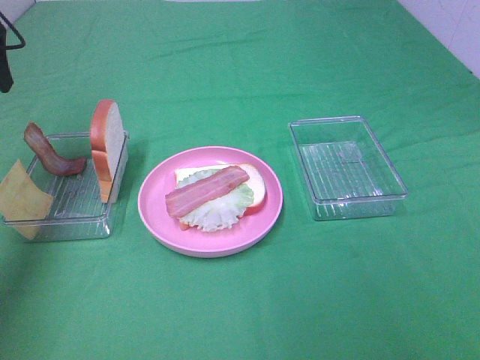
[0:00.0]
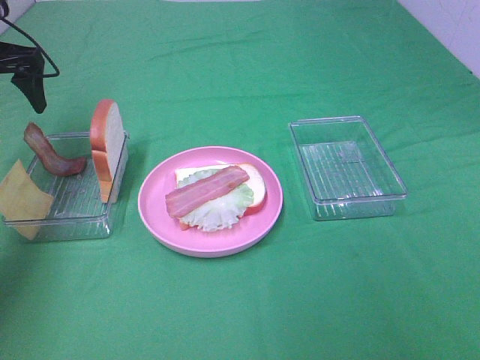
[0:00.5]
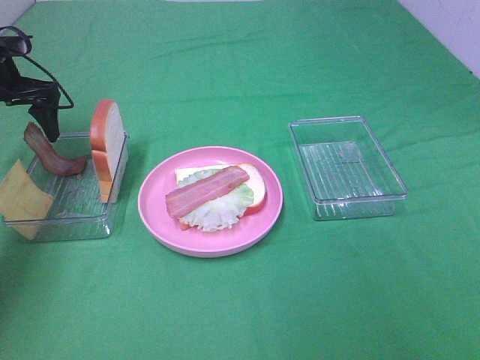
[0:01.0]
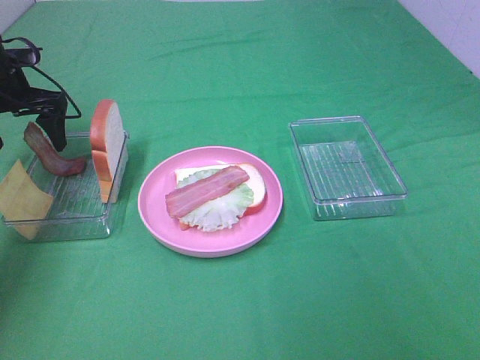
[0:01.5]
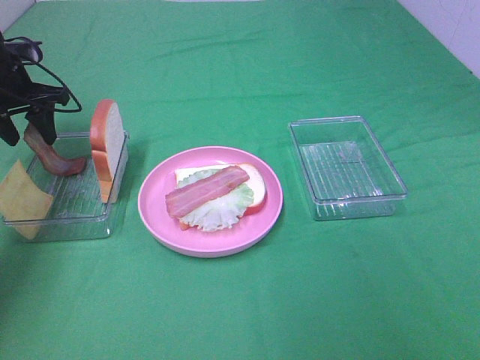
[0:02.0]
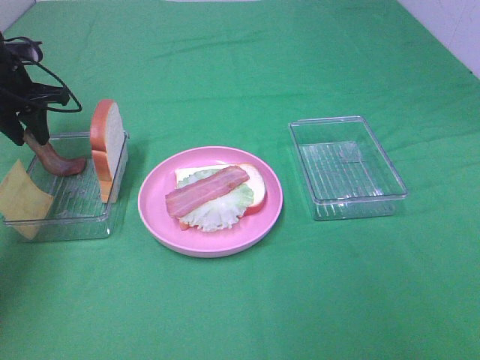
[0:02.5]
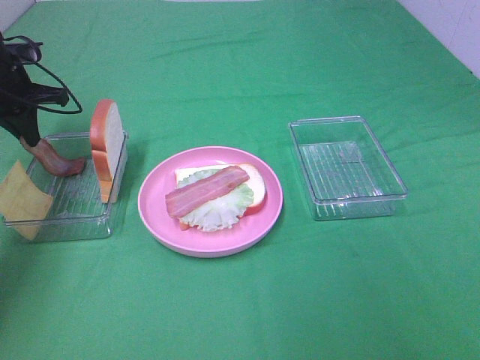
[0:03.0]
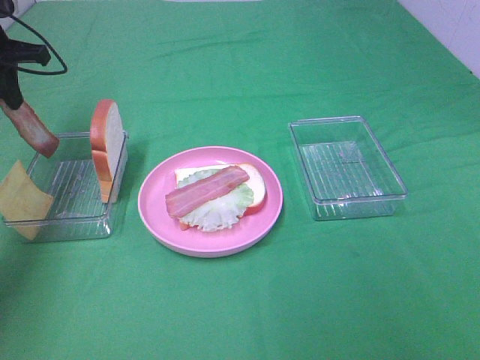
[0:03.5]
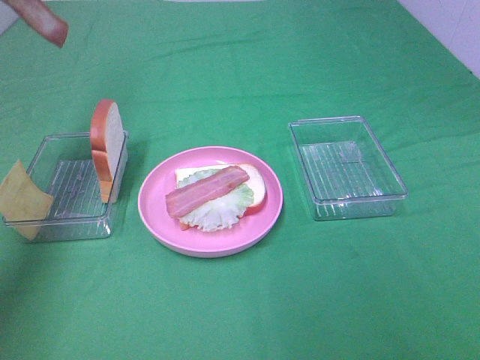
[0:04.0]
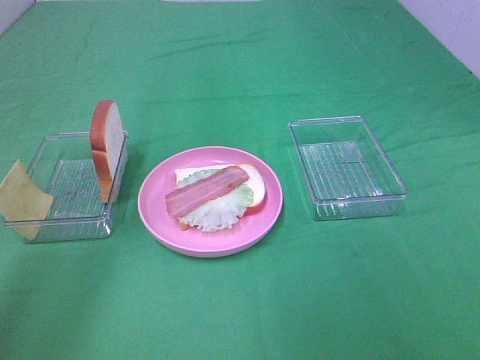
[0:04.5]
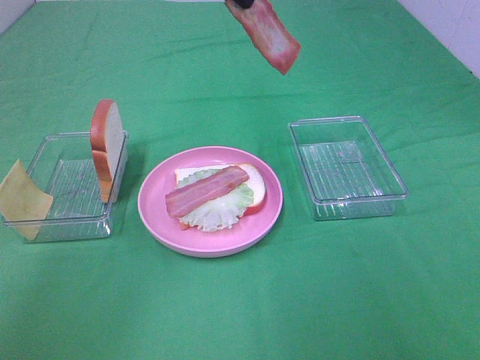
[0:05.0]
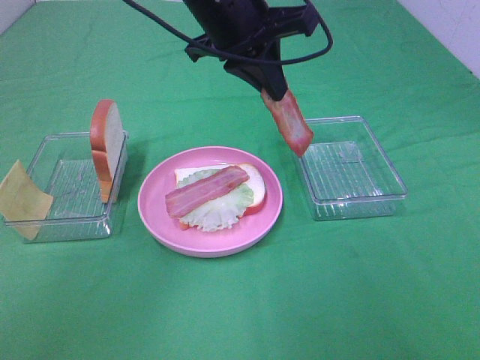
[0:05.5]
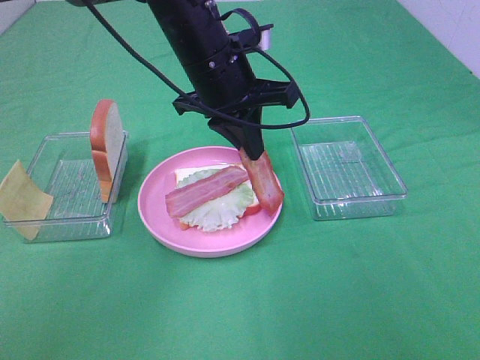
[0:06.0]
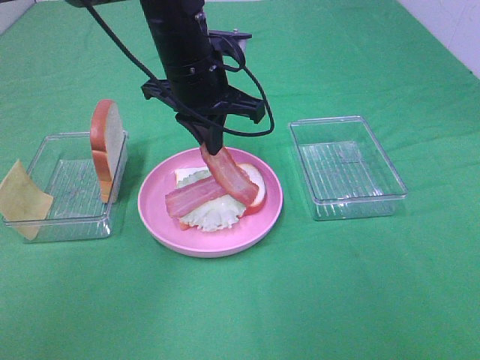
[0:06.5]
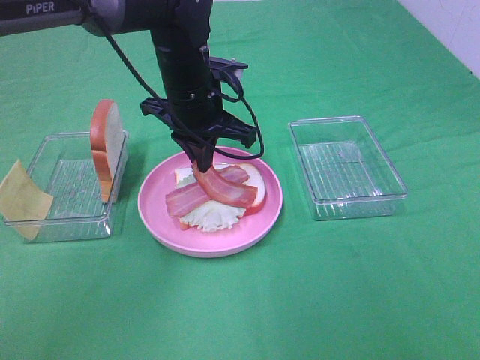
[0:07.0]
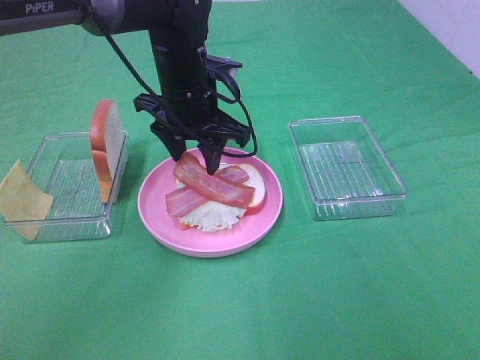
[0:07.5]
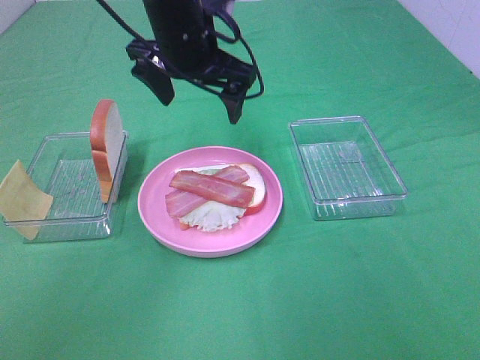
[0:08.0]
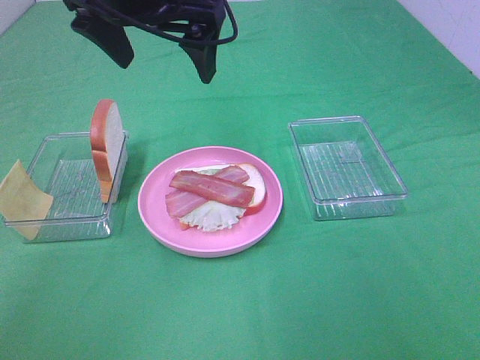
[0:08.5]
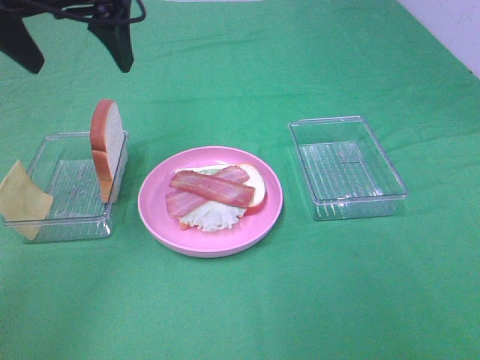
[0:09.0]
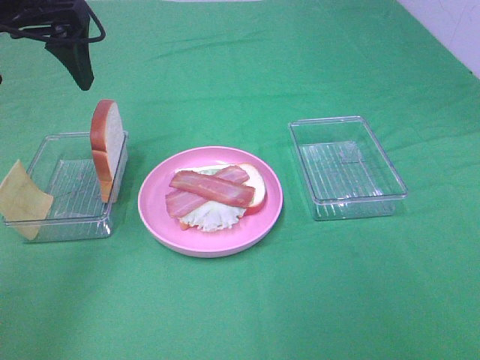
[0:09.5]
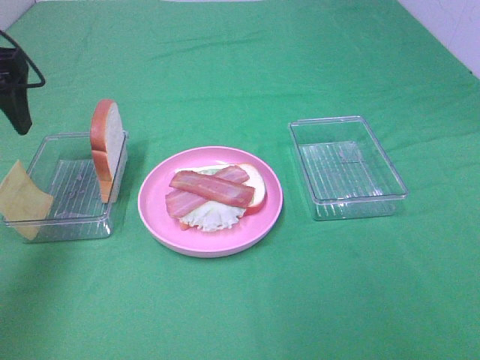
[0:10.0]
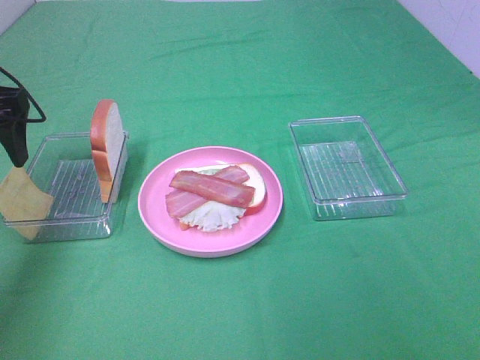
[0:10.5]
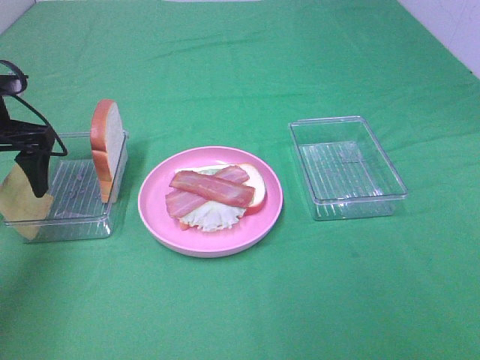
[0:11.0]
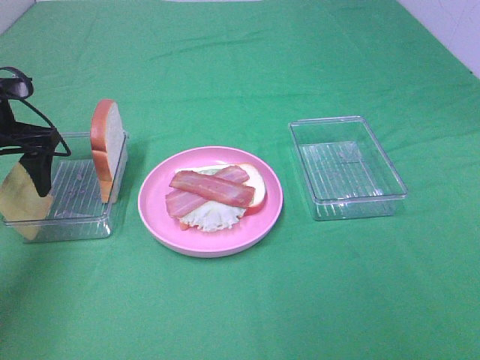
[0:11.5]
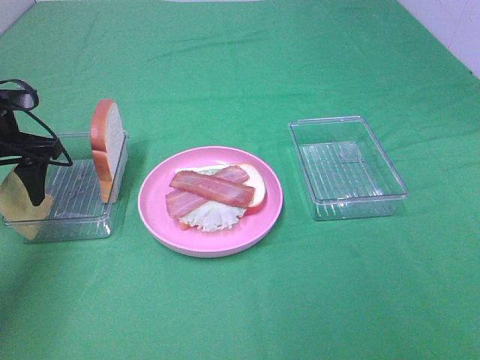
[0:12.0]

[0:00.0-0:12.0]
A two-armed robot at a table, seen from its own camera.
Task of the whole recording: Make sandwiches.
Step, 0:00.0 to 0:03.0: Left hand:grab the bacon.
Step, 0:03.5 to 0:07.5: Left hand:place bacon on bacon.
0:00.0 to 0:02.0: The left gripper shifts about 15 cm downward and forward, and closes its fingers.
0:02.0 to 0:04.0: The left gripper moves upward, some 20 cm, and closes.
0:04.0 to 0:06.0: The left gripper is displaced to the right and downward by about 30 cm.
0:06.0 to 0:08.0: The left gripper ends up about 5 cm from where it was, and opens.
0:08.0 to 0:10.0: The left gripper moves to the left, some 25 cm.
0:10.0 to 0:12.0: The left gripper is displaced downward by approximately 10 cm.

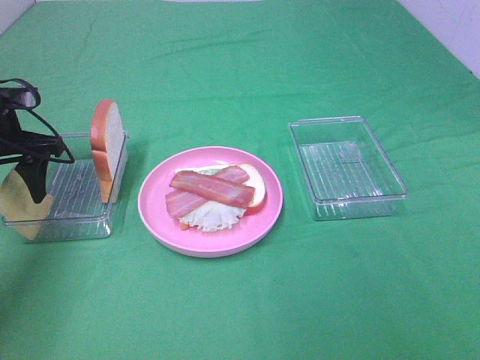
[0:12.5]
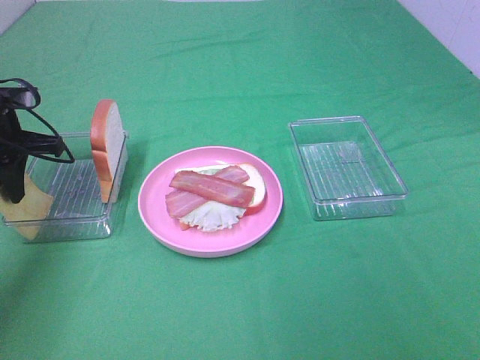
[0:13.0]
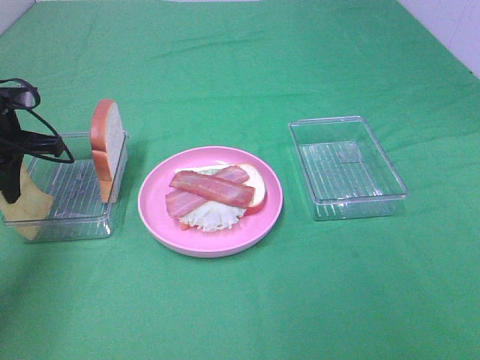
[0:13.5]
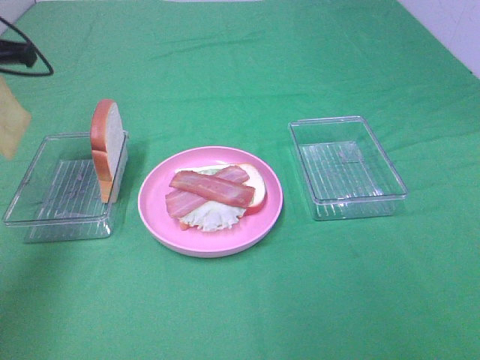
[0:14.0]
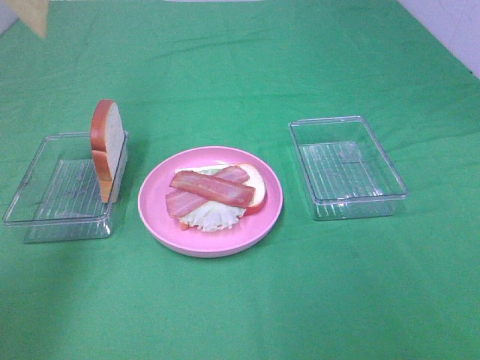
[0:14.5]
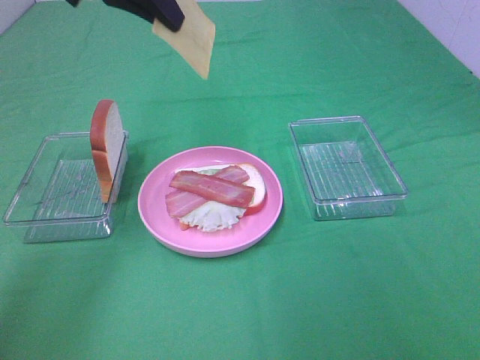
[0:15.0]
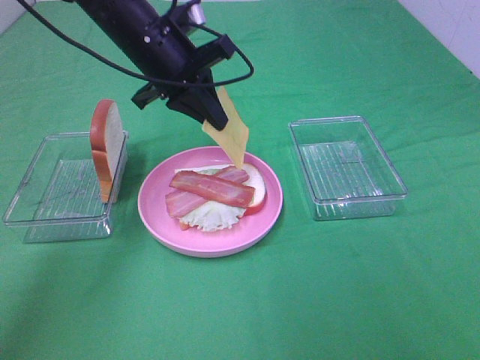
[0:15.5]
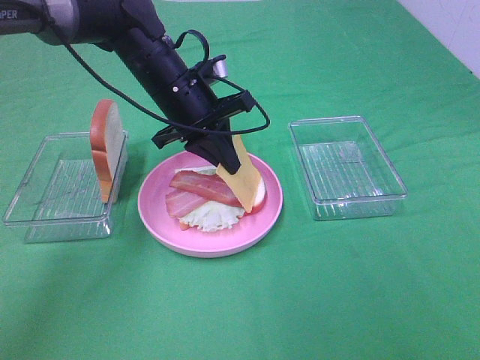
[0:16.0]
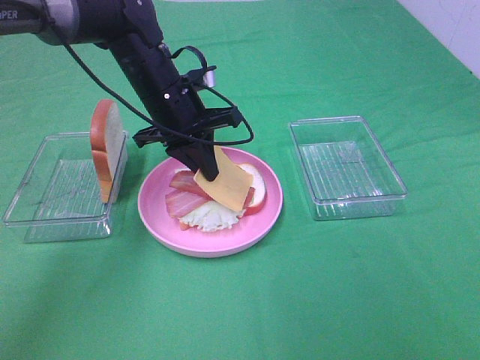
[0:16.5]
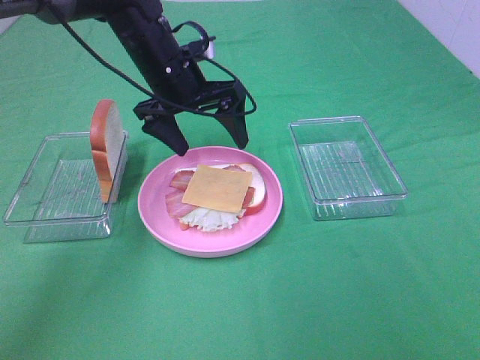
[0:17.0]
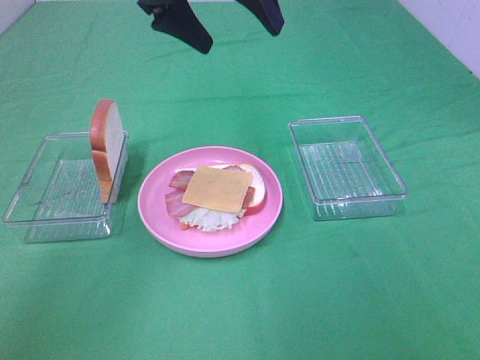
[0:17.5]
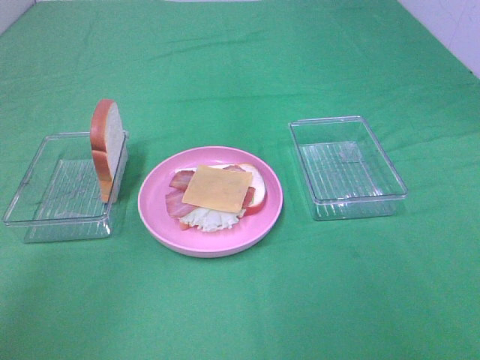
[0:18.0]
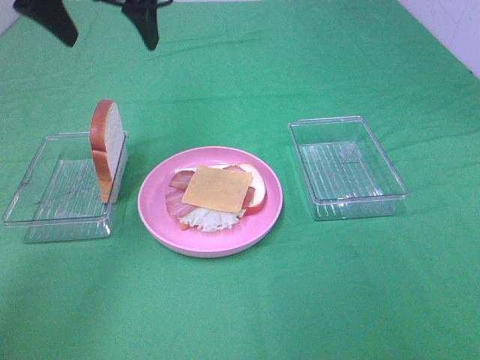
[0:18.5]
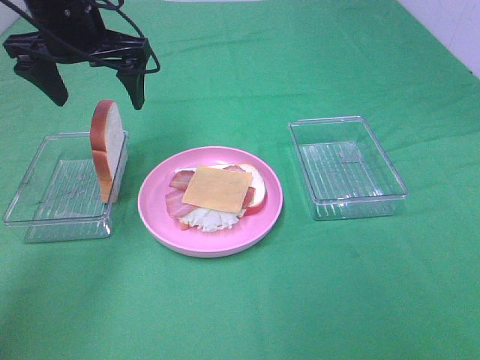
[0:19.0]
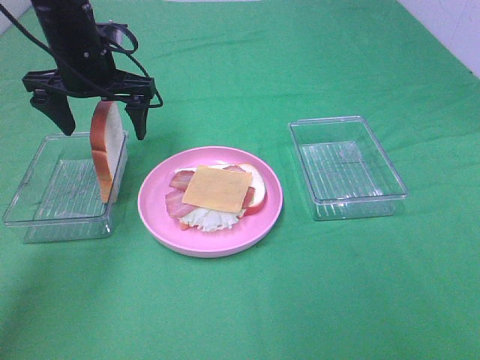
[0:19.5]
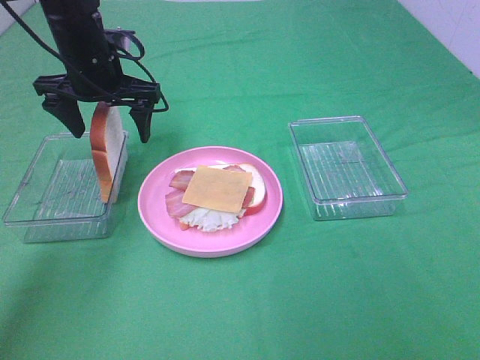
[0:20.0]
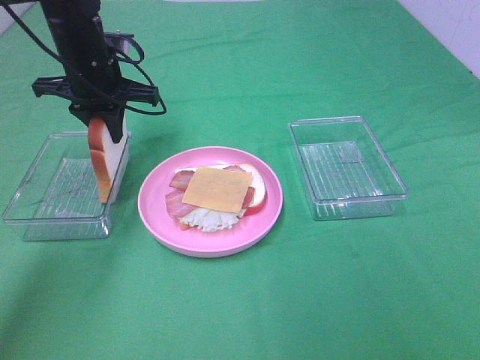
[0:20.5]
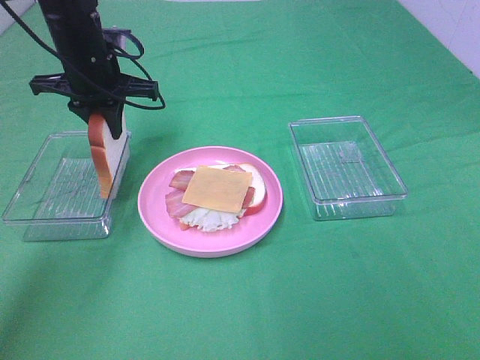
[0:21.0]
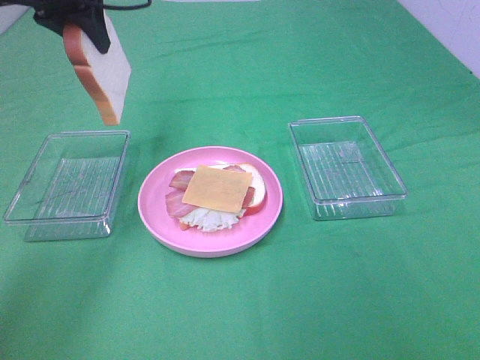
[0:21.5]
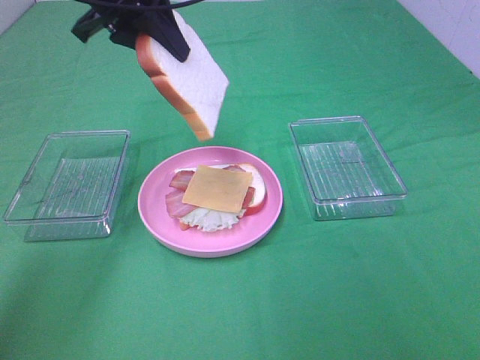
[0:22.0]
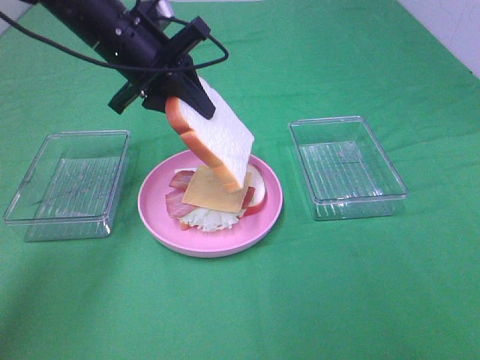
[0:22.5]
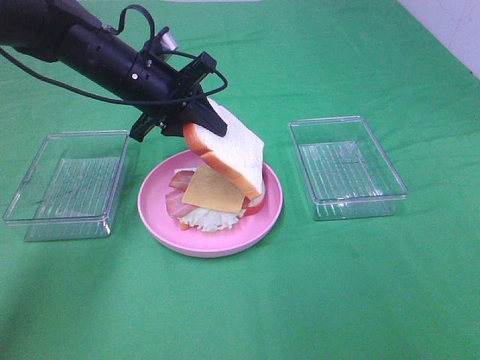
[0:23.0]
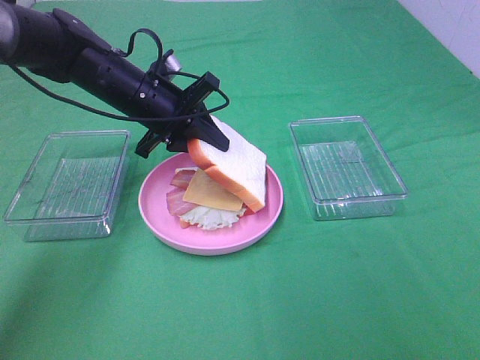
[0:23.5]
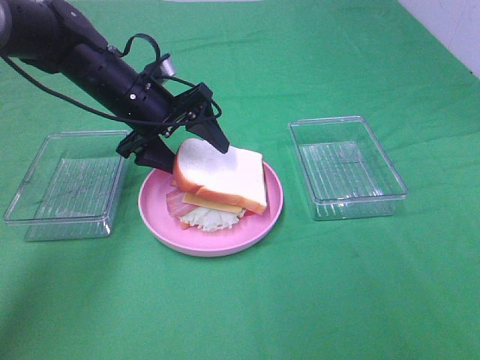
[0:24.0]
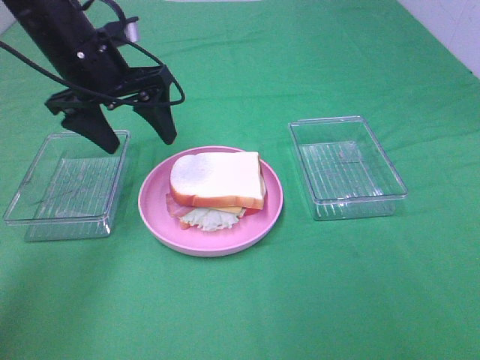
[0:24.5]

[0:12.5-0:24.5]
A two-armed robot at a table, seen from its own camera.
Task of the whole recording: Make sandwiches.
Step, 0:14.0 to 0:16.5: Left hand:place the cheese slice on top of the bacon.
Step, 0:17.0 to 0:21.0: Left hand:grab the bread slice.
Step, 0:21.5 to 0:24.0: Left hand:place the bread slice on the cheese slice.
0:12.5 to 0:14.5: The left gripper moves upward, about 25 cm, and closes.
0:14.5 to 0:16.5: The left gripper is displaced downward and to the right by roughly 30 cm.
0:16.5 to 0:18.5: The left gripper shifts about 20 cm upward and to the left, and opens up.
0:18.5 to 0:20.5: The left gripper is displaced downward and forward by about 15 cm, and closes up.
0:20.5 to 0:22.5: The left gripper heads to the right, covering about 5 cm, and travels upward and back again, approximately 15 cm each way.
0:22.5 to 0:24.5: The left gripper moves approximately 5 cm downward and comes back, and opens.

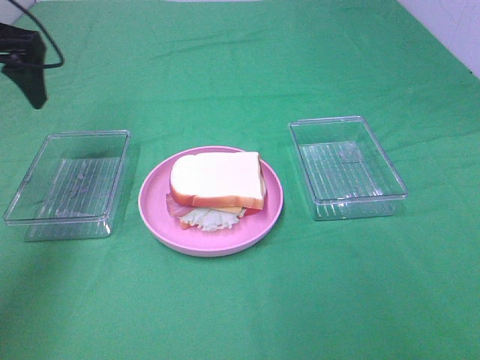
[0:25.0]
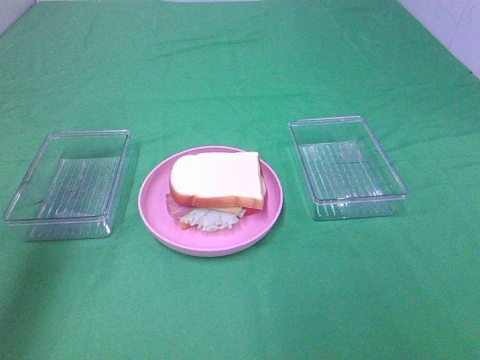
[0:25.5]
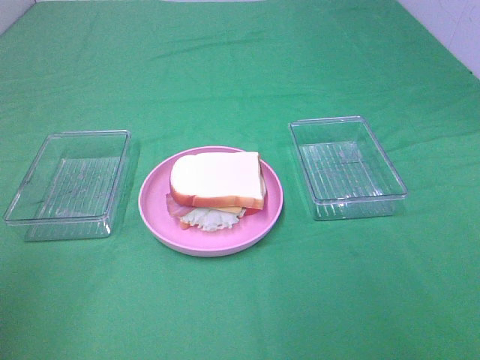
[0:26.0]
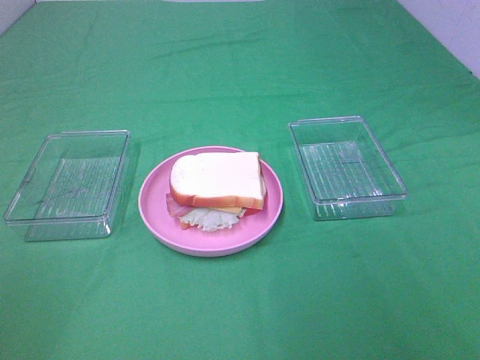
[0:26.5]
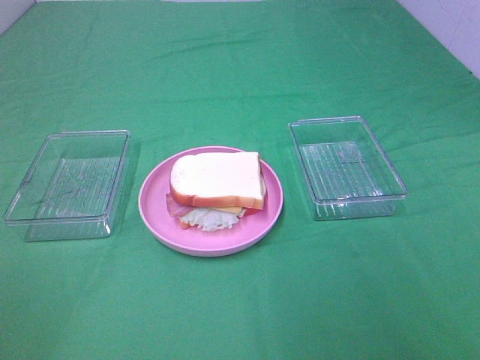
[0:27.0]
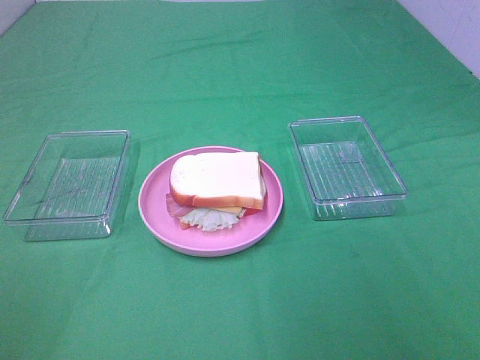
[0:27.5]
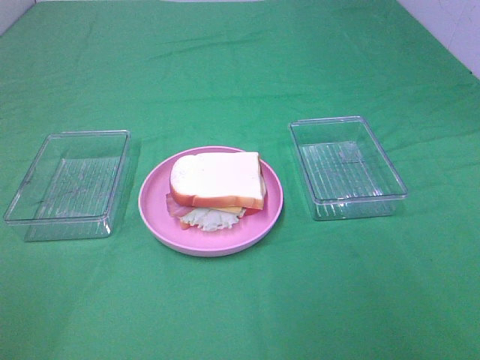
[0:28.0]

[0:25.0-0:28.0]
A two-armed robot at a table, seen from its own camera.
Task of the whole recording: Make sandwiches.
0:25.0 to 0:26.5: The left gripper goes approximately 40 cm backward.
